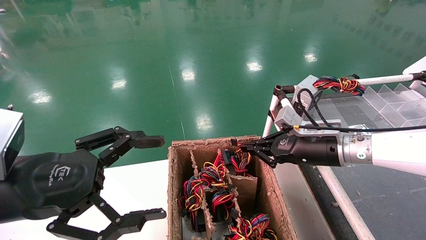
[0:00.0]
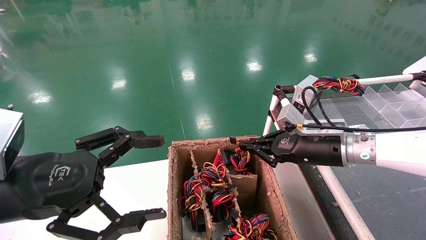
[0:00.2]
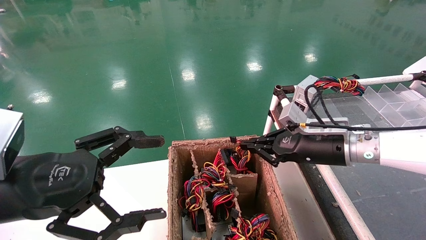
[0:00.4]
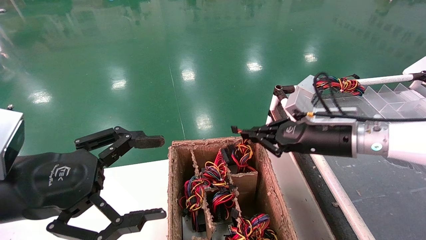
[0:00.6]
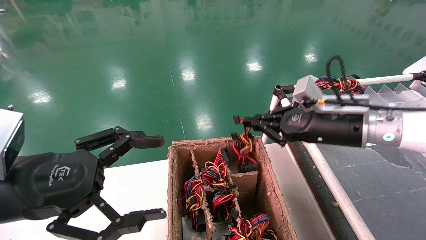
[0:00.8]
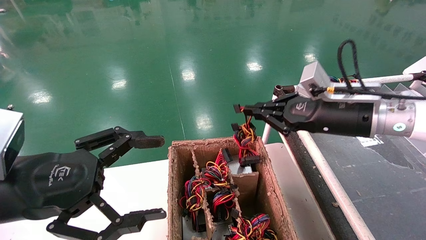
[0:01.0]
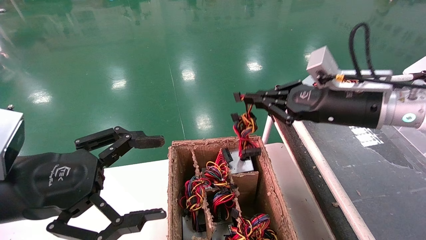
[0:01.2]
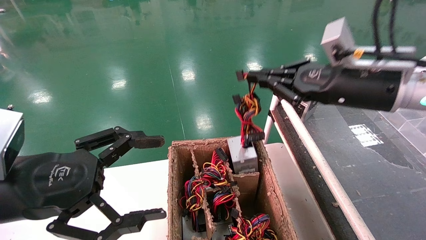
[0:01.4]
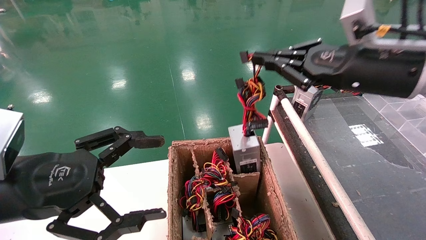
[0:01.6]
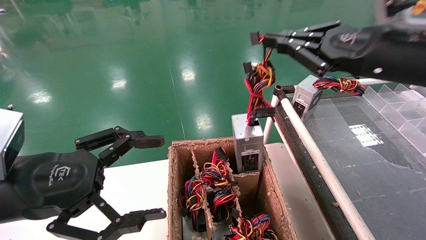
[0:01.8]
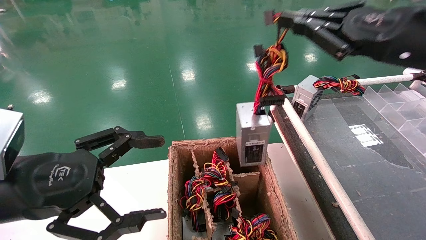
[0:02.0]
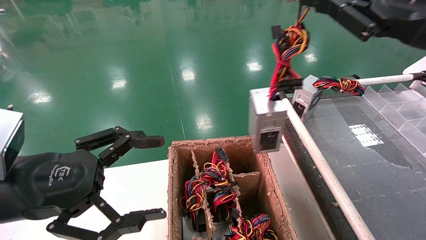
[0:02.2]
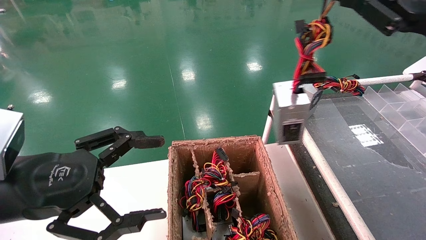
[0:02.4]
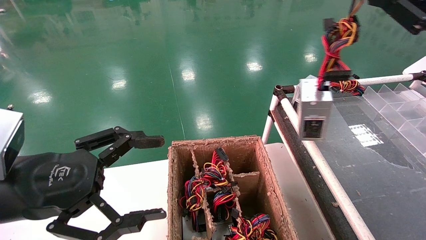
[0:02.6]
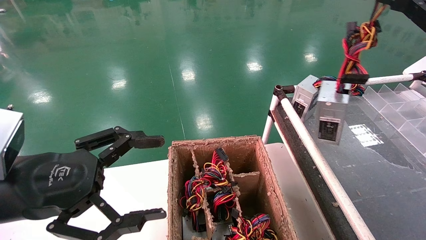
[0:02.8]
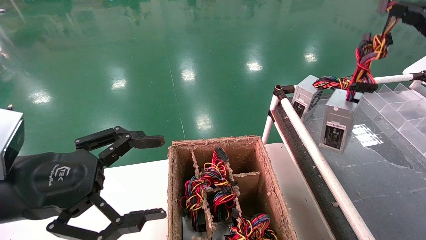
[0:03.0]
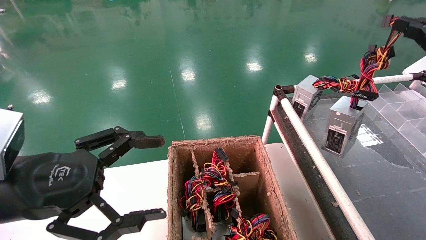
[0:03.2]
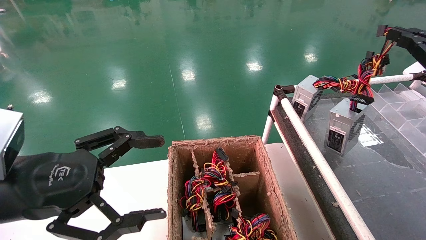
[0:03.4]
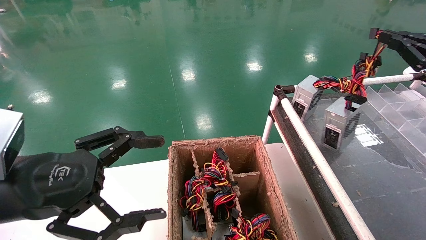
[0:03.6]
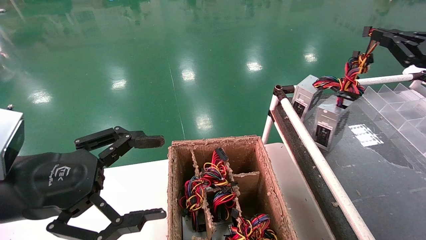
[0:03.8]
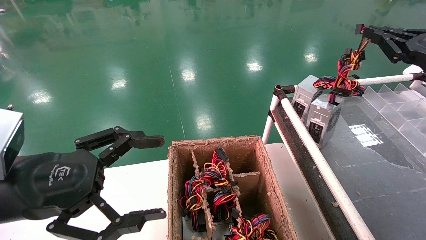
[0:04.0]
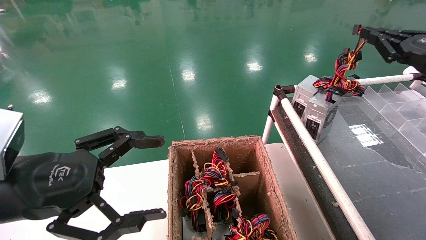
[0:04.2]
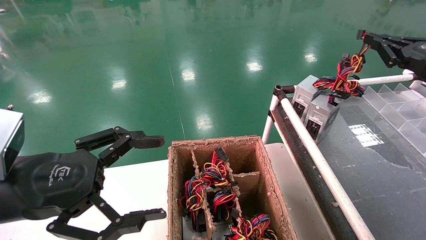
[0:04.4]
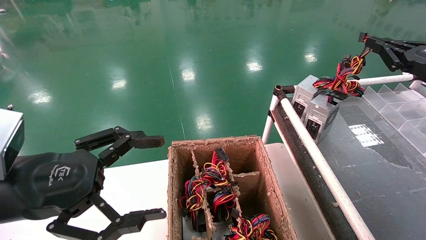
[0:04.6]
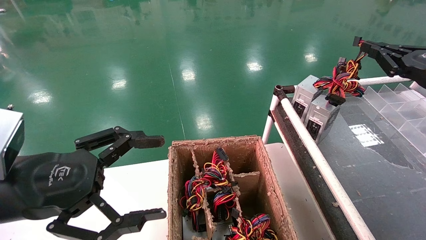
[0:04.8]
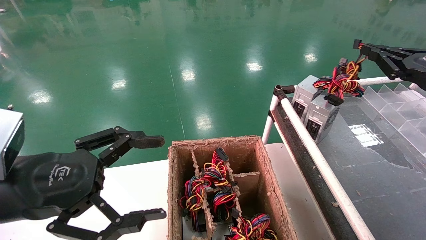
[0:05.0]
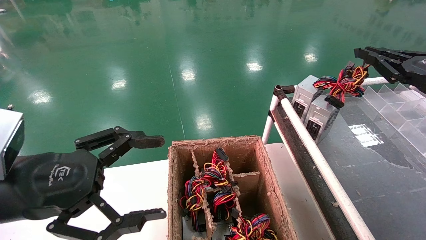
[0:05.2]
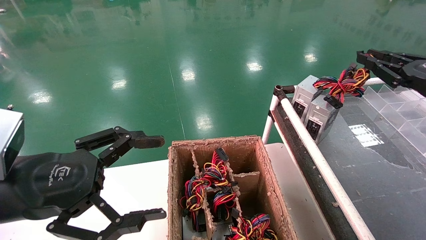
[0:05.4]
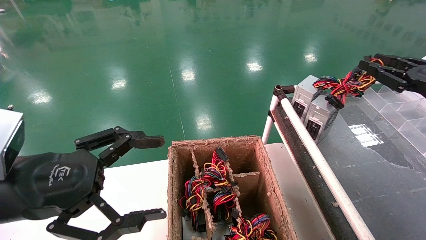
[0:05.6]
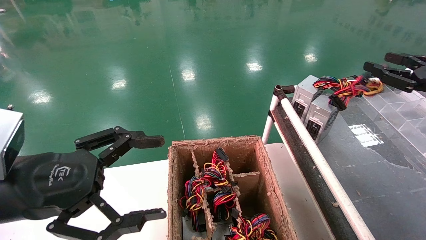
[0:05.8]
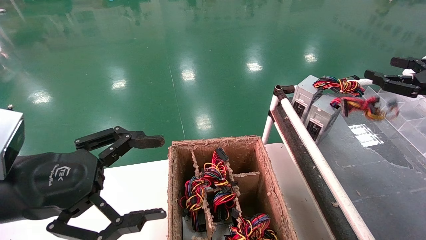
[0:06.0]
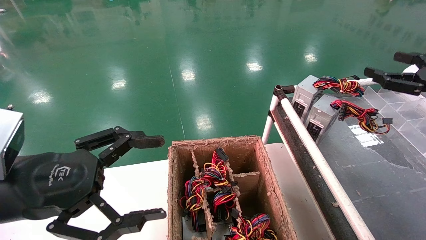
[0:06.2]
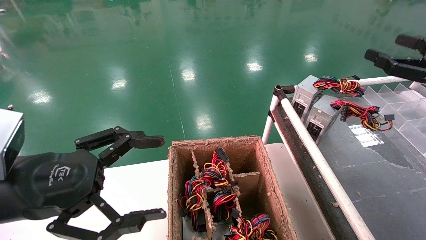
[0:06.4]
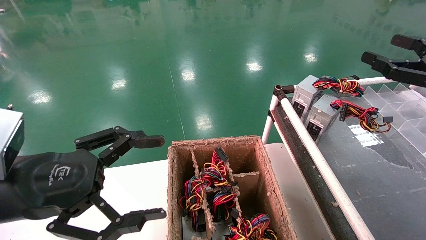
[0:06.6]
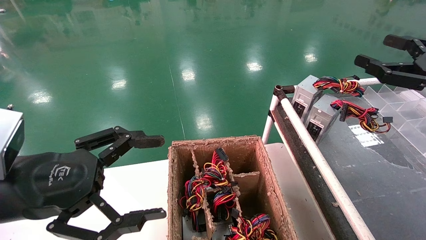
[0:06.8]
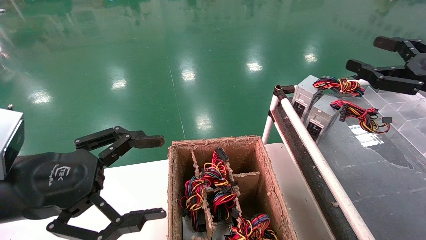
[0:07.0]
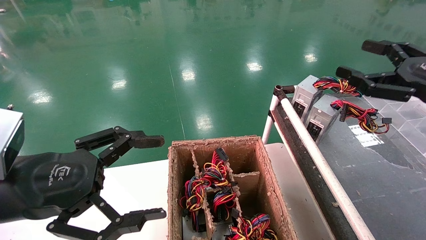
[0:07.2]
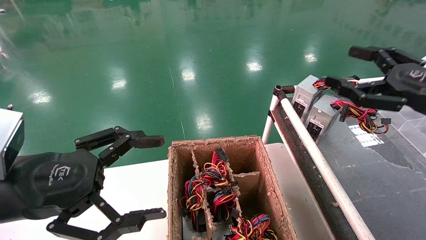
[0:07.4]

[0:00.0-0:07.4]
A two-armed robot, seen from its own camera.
Step, 0:00.0 to 0:05.0: Place the power supply on the operating table.
0:00.0 to 0:01.4: The right gripper moves upward and backward, approximately 15 cm.
0:01.4 to 0:03.0: The right gripper heads to the right and backward, covering roughly 20 cm.
0:03.0 to 0:04.4: The right gripper moves forward, about 10 cm.
0:04.4 to 0:06.0: The right gripper opens up.
0:06.0 to 0:07.4: The right gripper travels to the left by approximately 10 cm, and opens its fingers.
